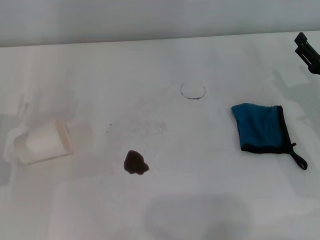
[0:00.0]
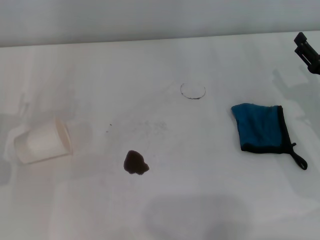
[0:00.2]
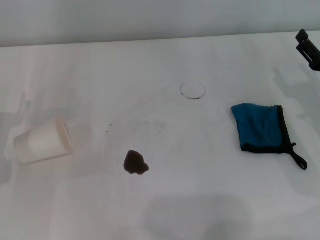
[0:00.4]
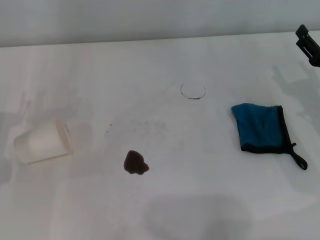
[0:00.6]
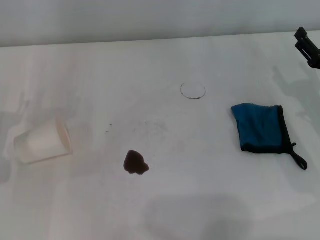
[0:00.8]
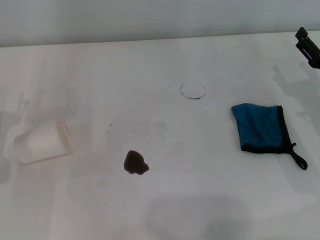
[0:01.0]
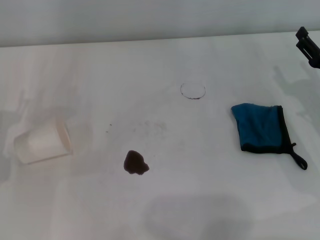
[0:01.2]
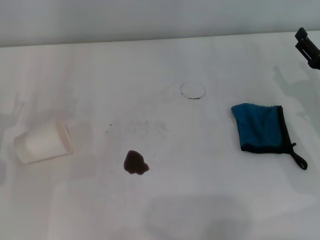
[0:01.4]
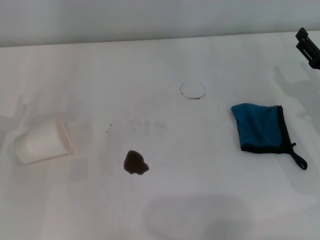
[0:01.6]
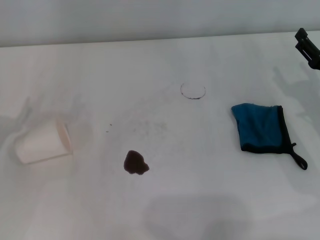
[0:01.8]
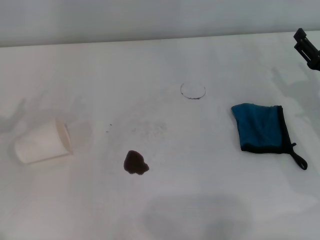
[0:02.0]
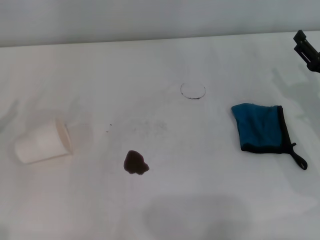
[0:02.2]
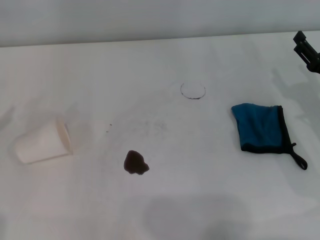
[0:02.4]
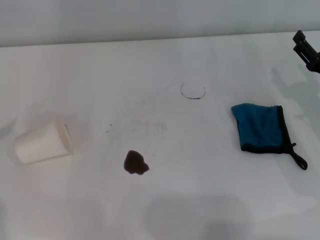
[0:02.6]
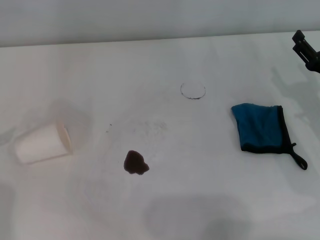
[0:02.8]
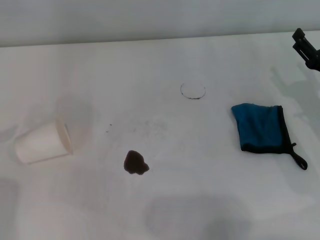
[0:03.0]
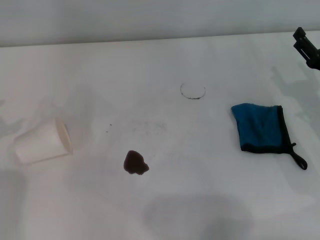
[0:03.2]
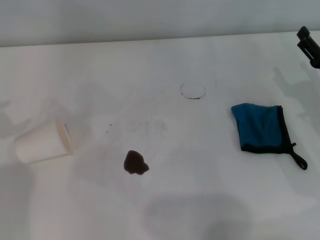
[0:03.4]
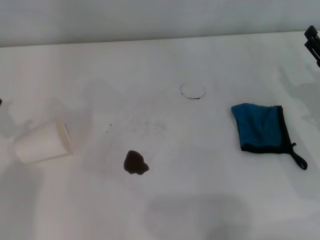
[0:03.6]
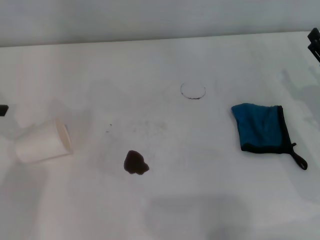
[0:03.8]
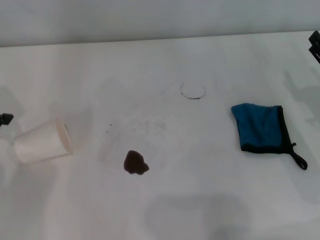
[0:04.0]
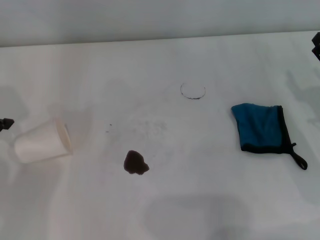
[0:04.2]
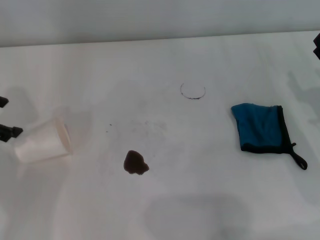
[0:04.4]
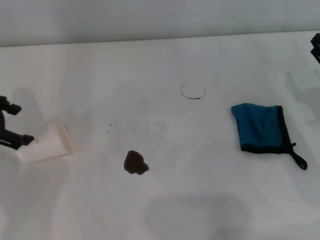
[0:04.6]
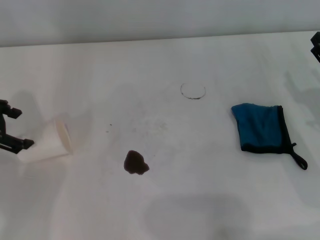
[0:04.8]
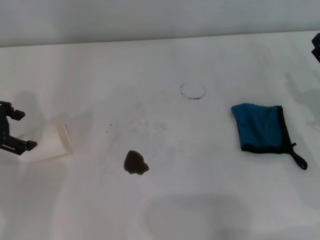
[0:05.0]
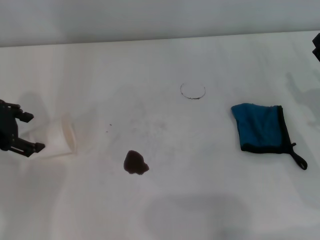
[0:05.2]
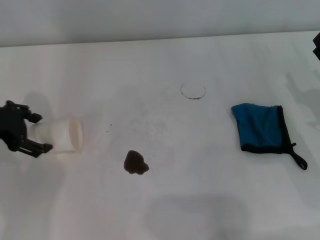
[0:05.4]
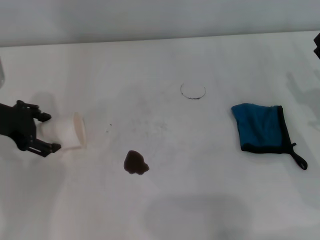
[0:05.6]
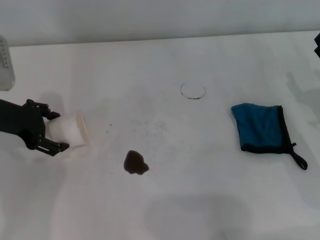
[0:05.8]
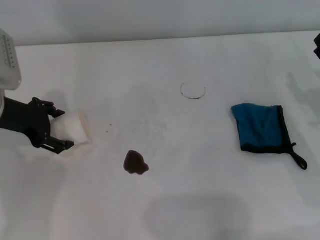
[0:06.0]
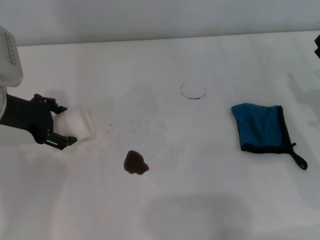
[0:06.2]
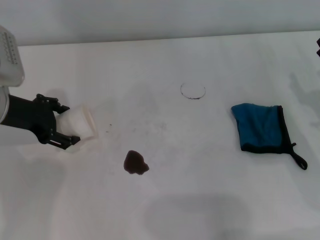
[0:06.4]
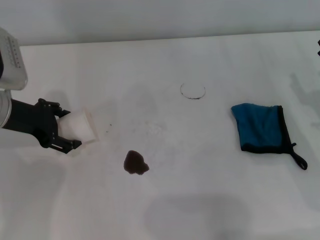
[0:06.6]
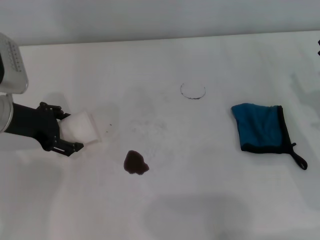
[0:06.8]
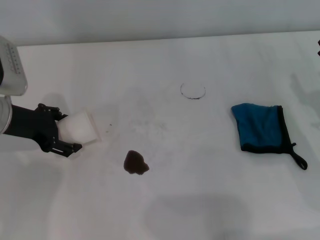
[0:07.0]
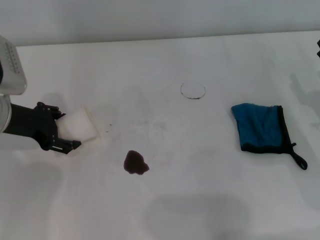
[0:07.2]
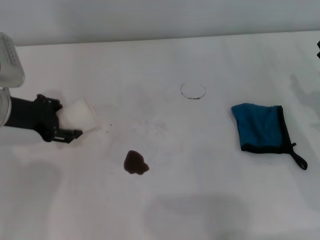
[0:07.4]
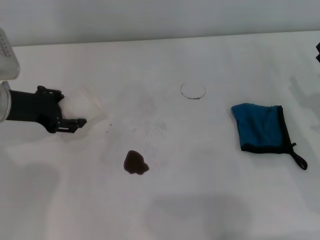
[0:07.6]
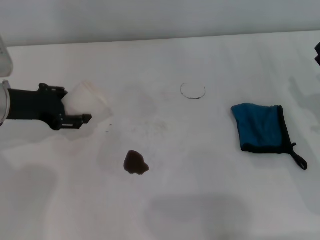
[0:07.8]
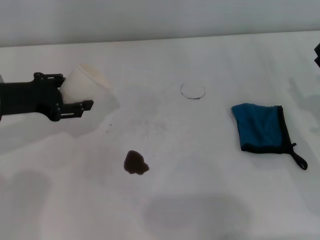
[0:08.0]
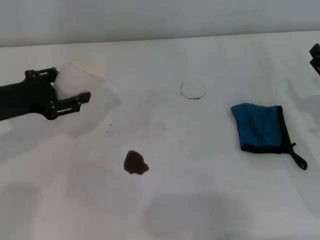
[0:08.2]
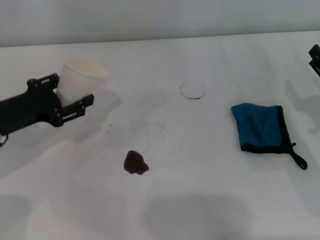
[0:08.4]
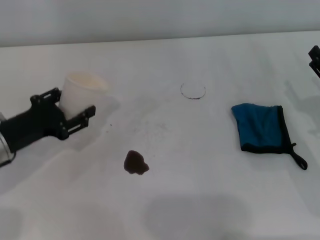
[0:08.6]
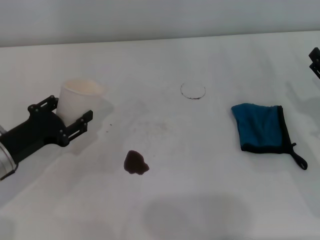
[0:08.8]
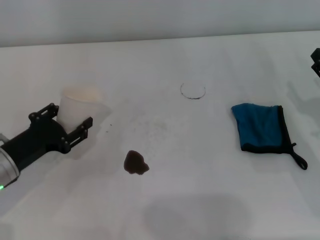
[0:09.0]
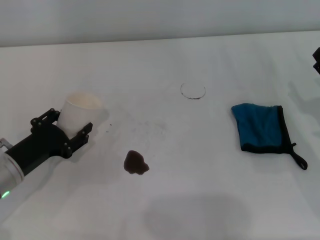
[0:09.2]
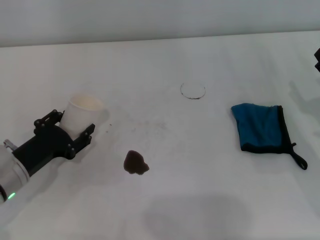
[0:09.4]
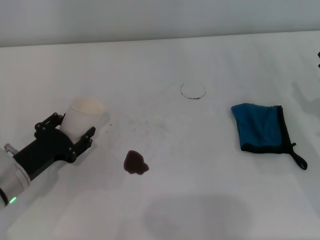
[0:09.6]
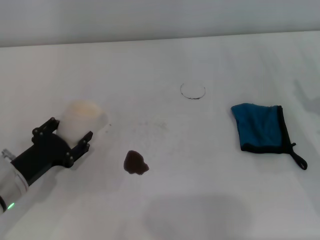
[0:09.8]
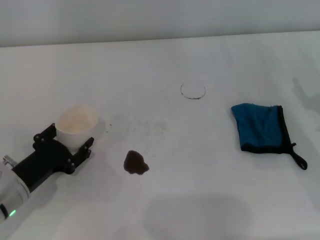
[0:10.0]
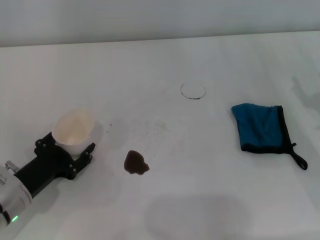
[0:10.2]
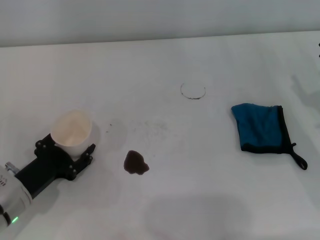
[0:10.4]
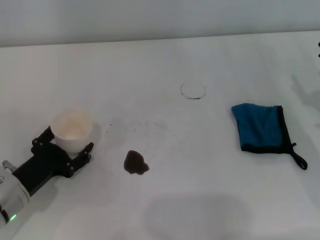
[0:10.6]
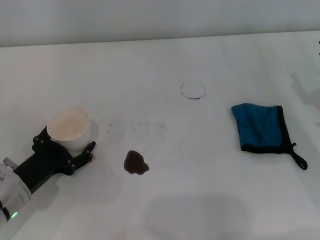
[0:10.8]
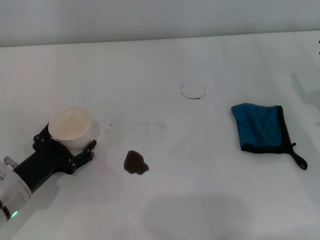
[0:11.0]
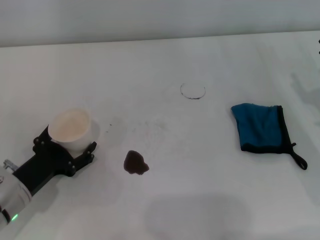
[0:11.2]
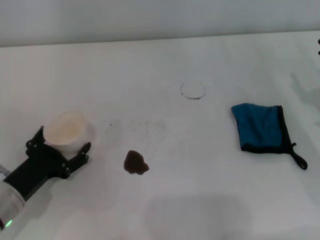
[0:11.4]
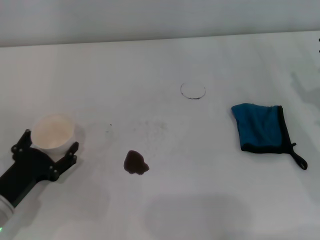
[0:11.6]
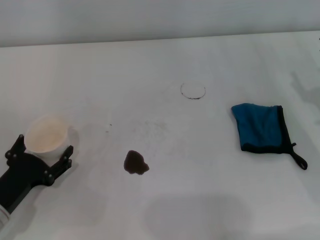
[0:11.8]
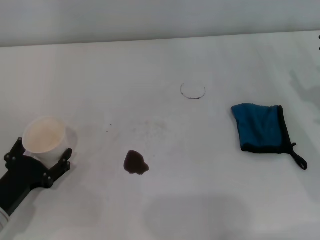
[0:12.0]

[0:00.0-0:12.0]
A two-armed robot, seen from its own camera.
Step, 0:00.0 to 0:07.0: Grasp the paper cup with the left gripper.
Step, 0:07.4 to 0:11.8: Stand the paper cup upright with the left gripper.
0:03.0 to 0:04.4: The left gripper heads to the right, covering approximately 10 cm.
0:04.4 to 0:06.0: The left gripper goes roughly 10 cm to the right and downward.
0:06.0 to 0:07.6: The left gripper closes up.
0:07.6 to 0:09.0: The left gripper travels backward and downward by approximately 15 cm.
0:09.0 to 0:10.4: The left gripper changes place by some 5 cm.
0:10.4 to 0:12.0: The left gripper opens its fingers.

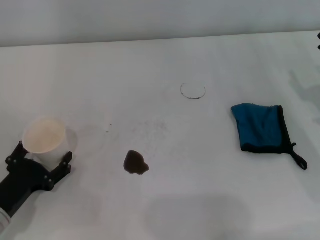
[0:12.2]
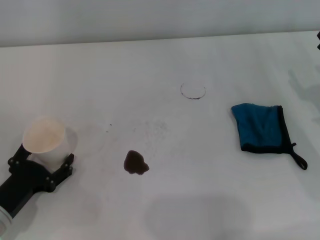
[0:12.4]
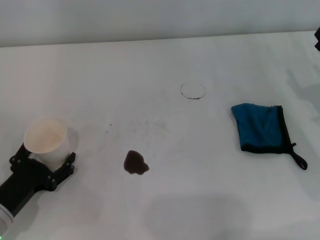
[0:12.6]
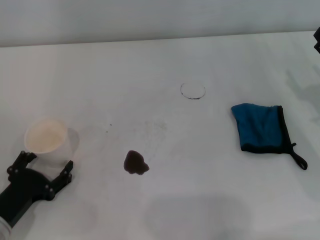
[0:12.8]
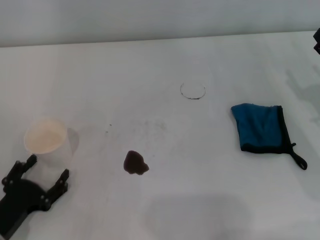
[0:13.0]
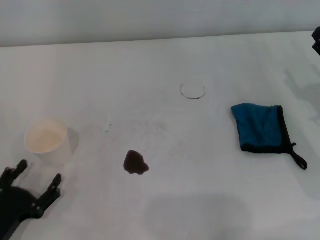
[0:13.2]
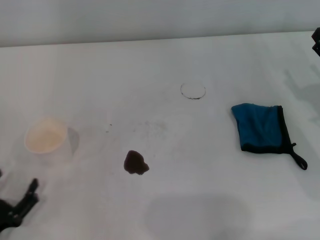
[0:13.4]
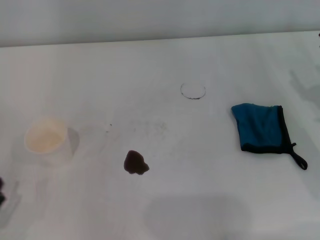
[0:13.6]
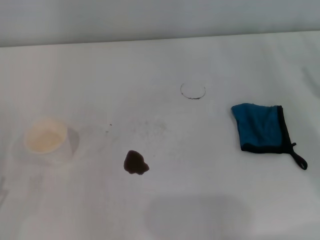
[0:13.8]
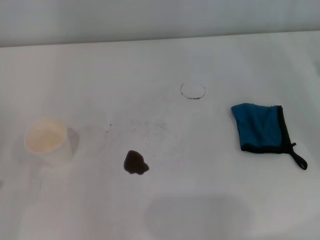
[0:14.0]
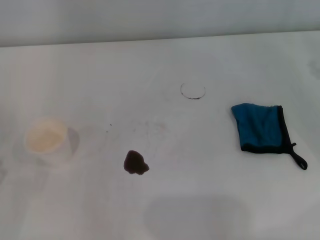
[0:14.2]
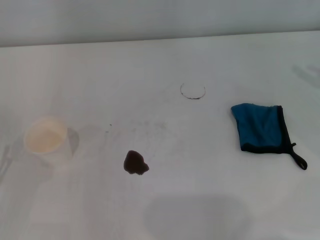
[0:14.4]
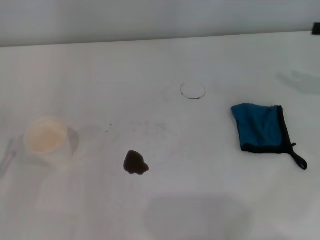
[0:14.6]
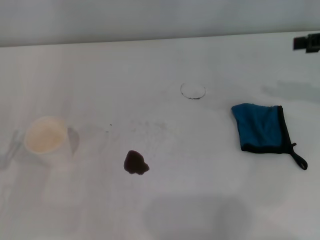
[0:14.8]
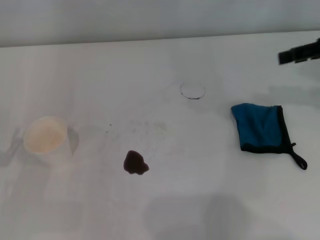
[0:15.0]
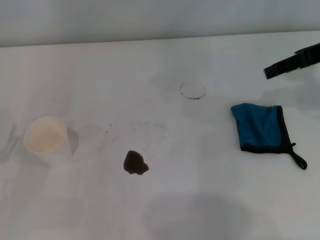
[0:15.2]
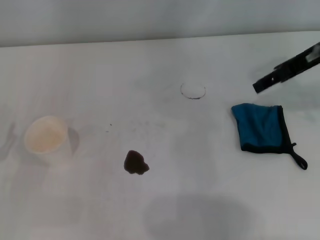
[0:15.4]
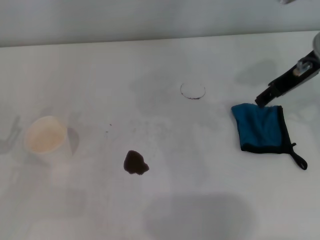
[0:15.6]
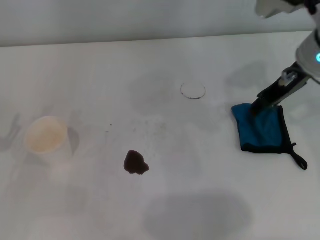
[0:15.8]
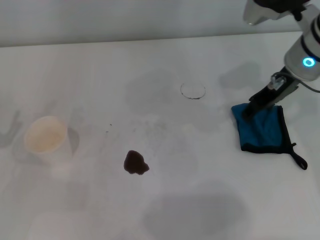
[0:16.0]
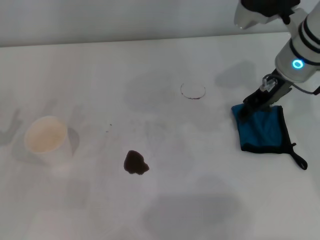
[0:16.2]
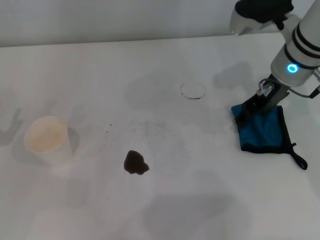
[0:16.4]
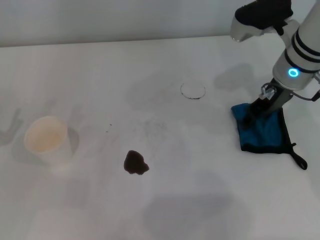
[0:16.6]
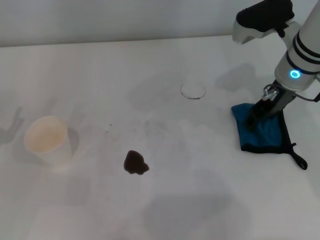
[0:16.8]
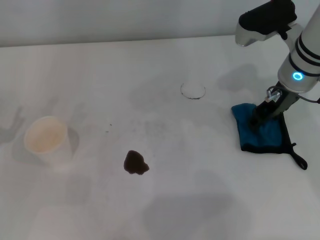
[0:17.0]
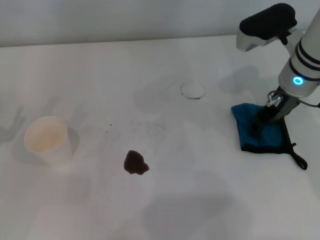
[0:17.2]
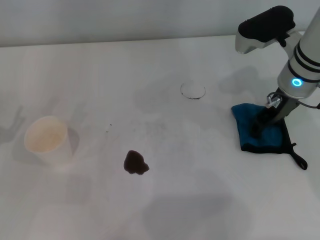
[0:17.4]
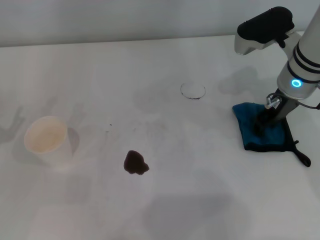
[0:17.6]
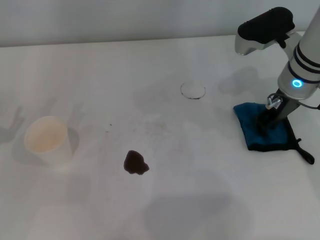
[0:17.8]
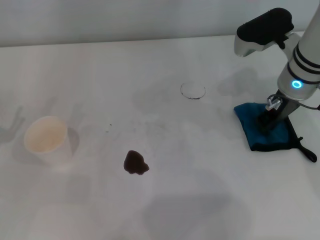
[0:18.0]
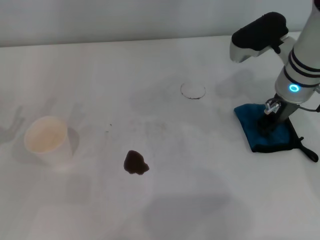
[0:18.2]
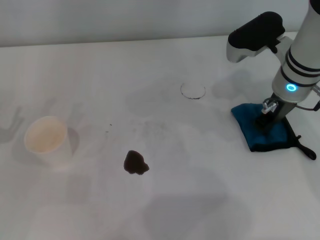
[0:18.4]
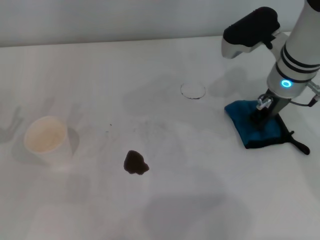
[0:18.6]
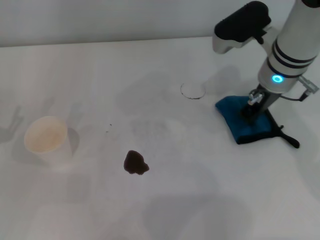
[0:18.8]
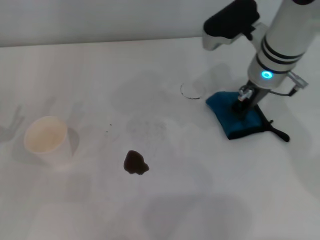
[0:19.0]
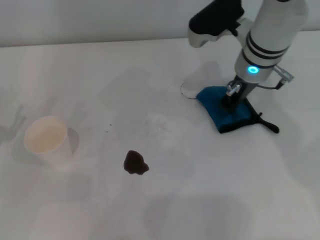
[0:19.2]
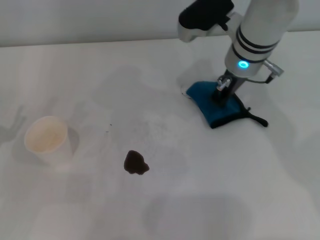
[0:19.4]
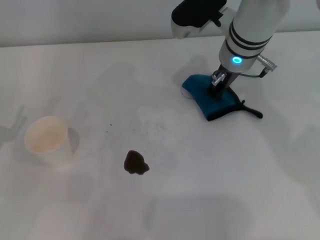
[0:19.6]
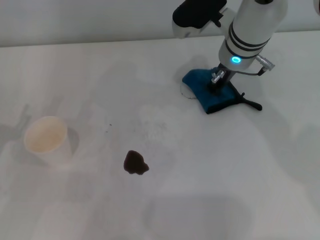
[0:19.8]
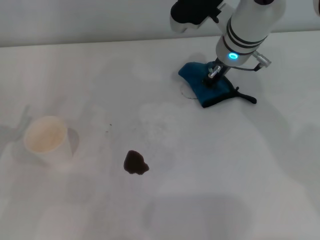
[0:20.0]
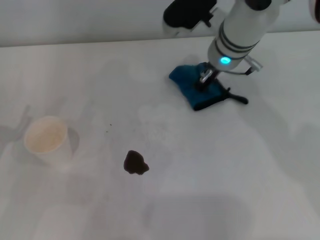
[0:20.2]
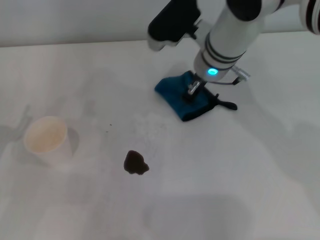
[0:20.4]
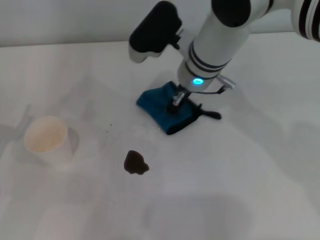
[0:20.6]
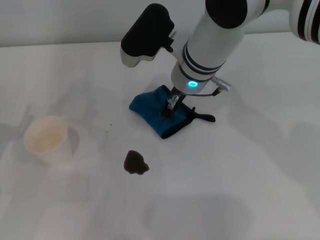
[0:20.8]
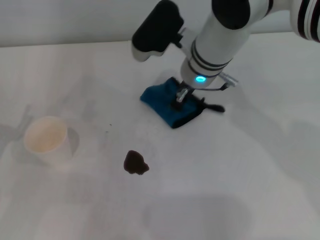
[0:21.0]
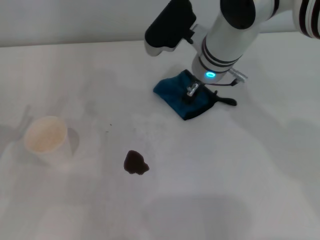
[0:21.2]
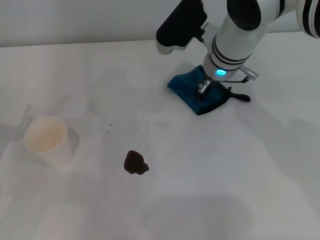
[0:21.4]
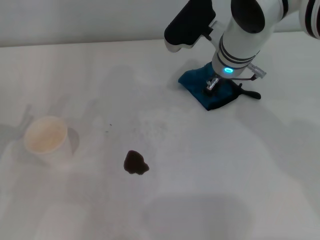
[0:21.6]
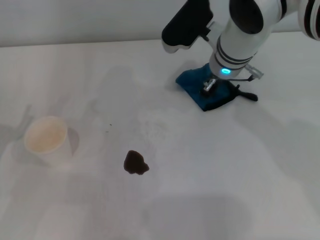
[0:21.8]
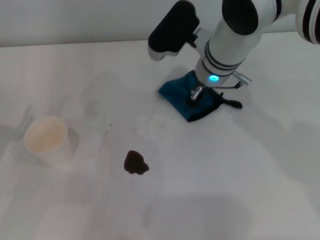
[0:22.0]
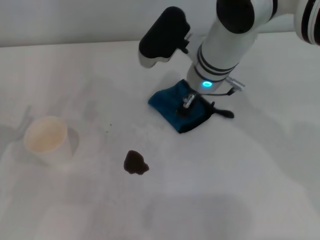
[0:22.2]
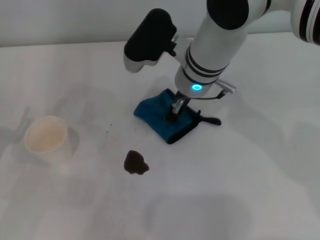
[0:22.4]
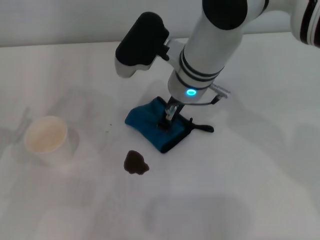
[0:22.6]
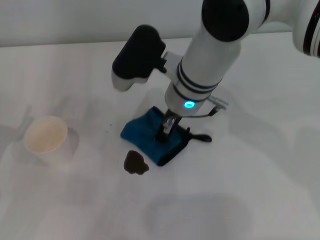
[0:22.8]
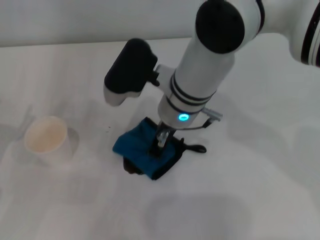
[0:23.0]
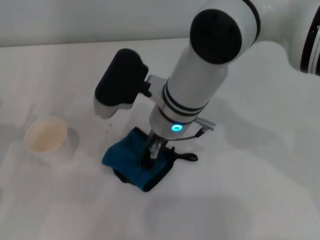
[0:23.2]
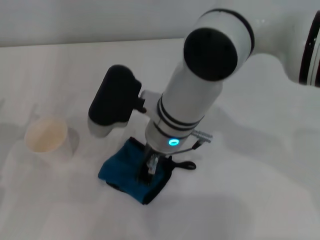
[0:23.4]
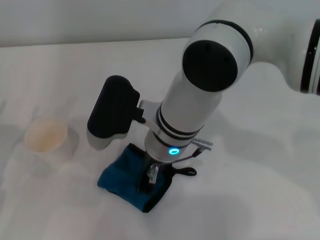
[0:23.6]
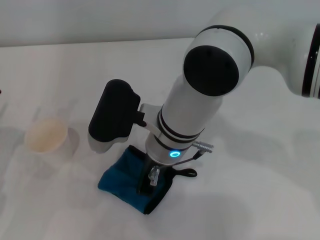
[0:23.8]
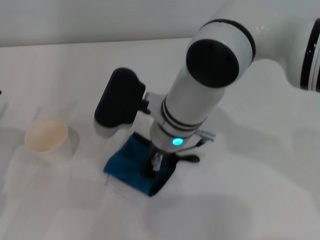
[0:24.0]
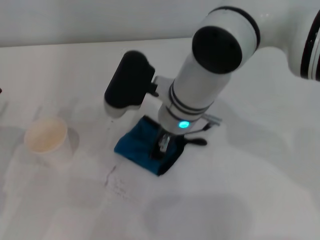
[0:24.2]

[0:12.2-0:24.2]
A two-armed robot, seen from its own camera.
Step, 0:12.2 to 0:18.2: Grasp the rag with the right gripper.
0:12.2 to 0:13.8: The left gripper travels backward and to the left by about 10 cm.
0:13.8 to 0:15.2: The right gripper moves upward and forward, roughly 20 cm.
0:15.2 to 0:16.6: The right gripper is displaced to the left and downward by some 15 cm.
0:16.6 to 0:18.2: The right gripper closes up.
0:18.2 to 0:19.8: The right gripper shifts some 10 cm to the left and forward.
0:21.2 to 0:22.6: The right gripper changes place by approximately 5 cm.
